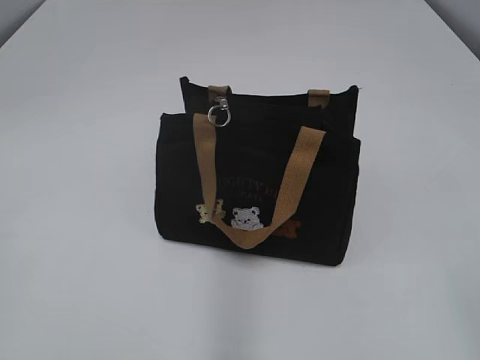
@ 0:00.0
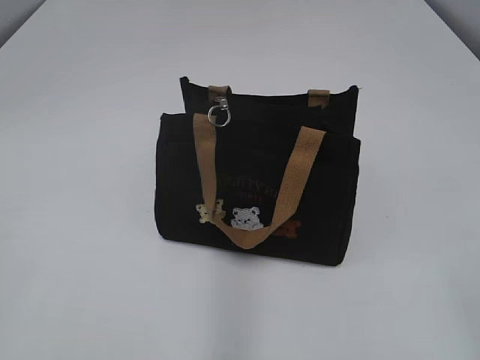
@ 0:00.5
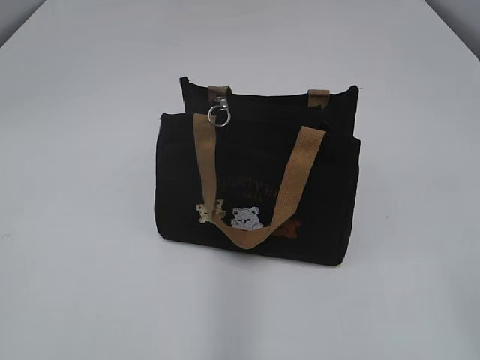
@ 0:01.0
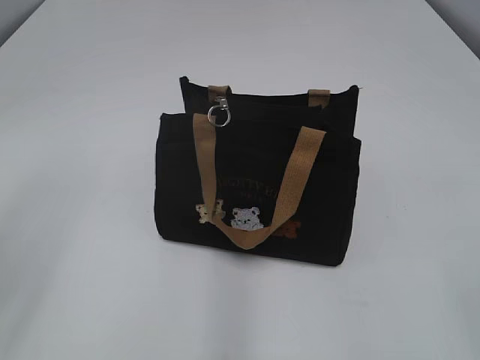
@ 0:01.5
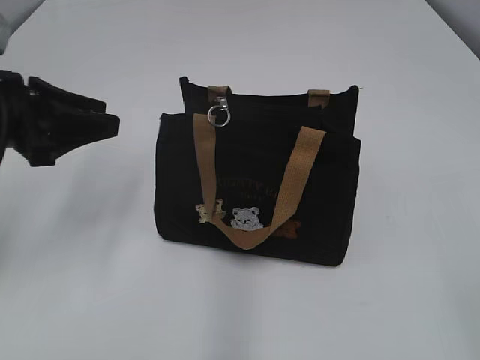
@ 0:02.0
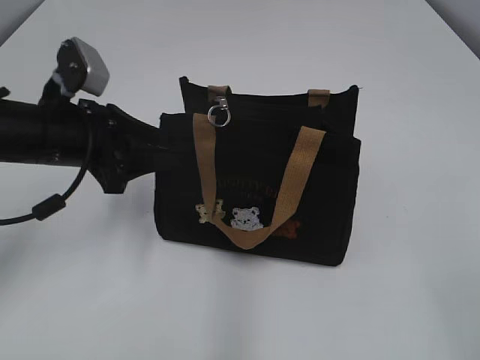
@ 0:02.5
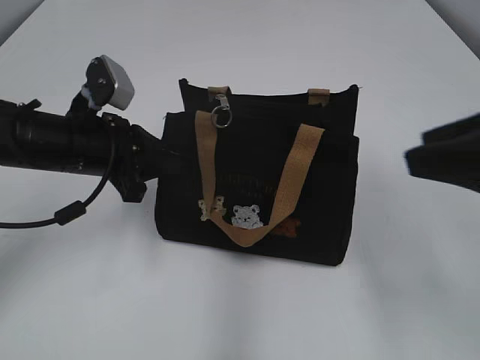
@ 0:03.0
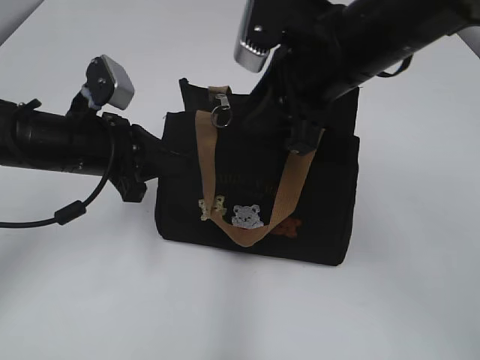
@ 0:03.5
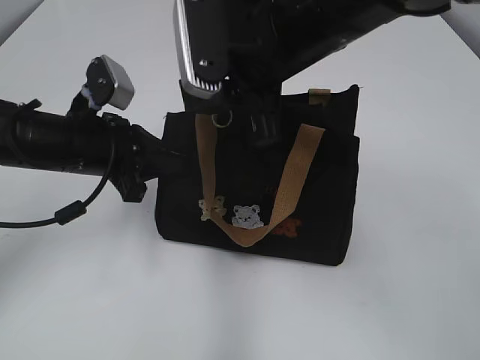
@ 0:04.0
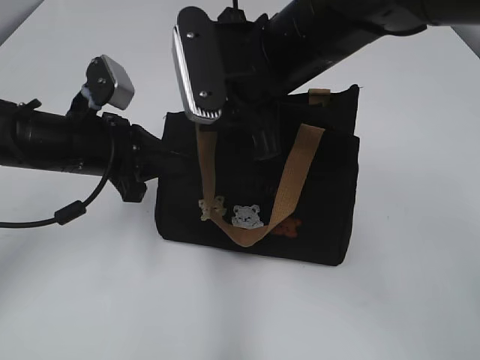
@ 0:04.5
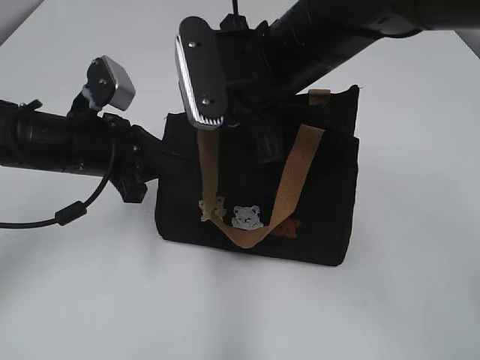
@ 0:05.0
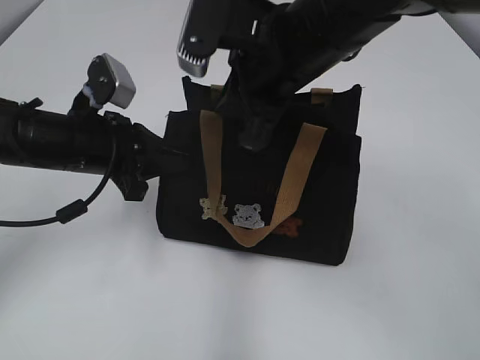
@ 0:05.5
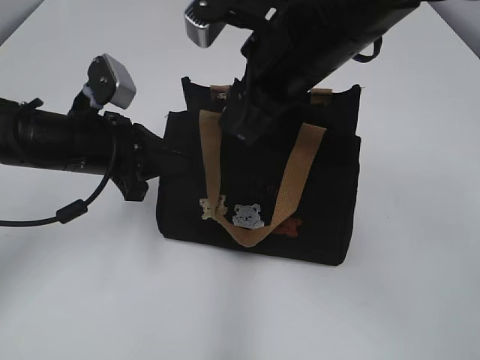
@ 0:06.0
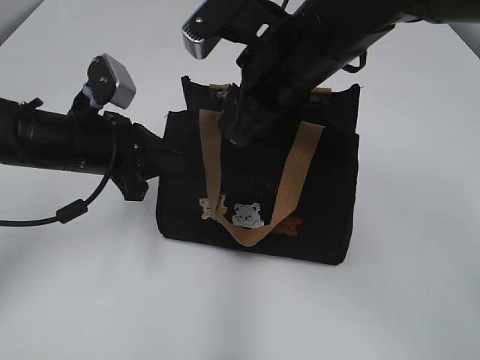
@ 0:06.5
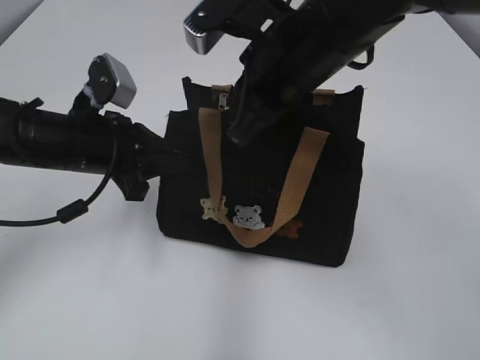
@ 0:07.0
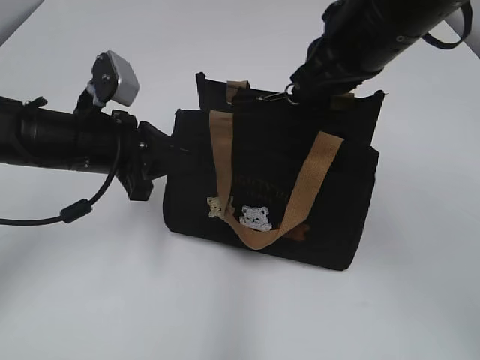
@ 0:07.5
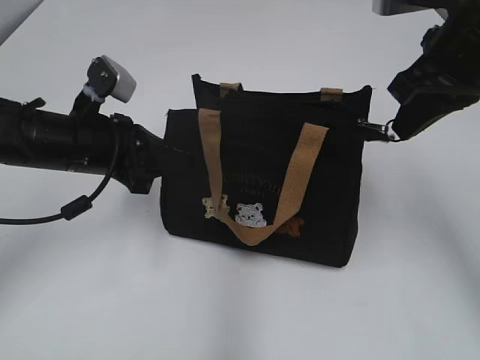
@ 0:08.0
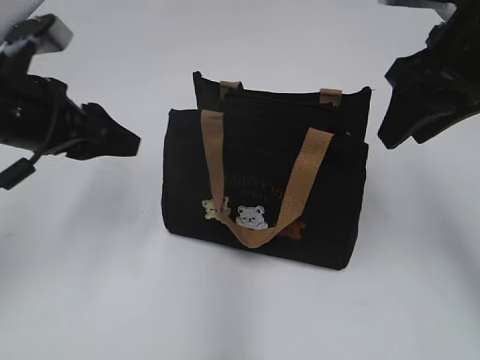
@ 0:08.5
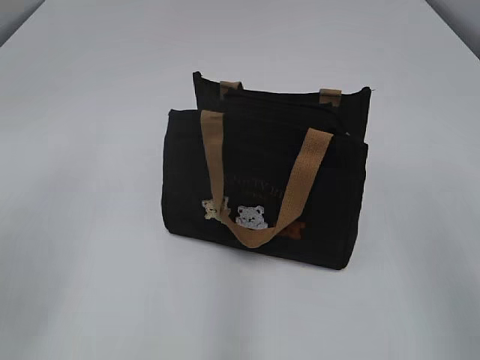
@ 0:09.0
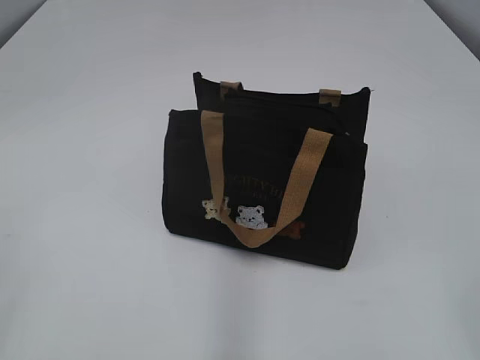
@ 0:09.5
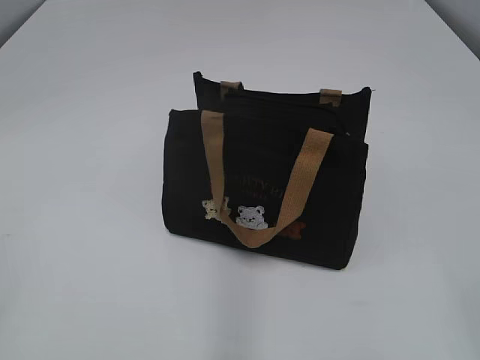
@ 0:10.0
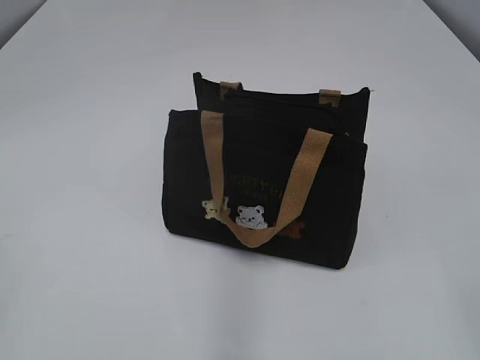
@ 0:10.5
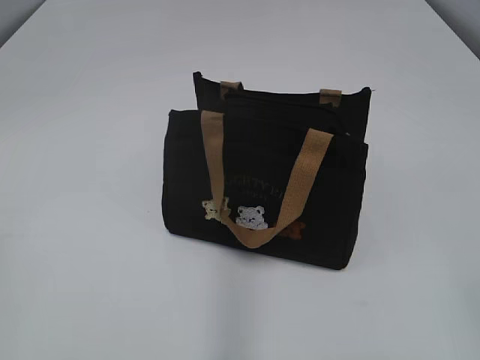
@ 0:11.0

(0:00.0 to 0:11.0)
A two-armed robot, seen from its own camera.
Step, 0:00.0 - 0:08.0: Pull open the zipper with your right hand.
0:02.0 - 0:03.5: The right gripper shifts approximately 35 cm forward and to the left. Meanwhile the left gripper heads to the right and downward, covering some 10 cm, and closes.
0:03.5 - 0:05.5: The right gripper closes.
0:05.5 - 0:07.5: The right gripper moves to the right, some 10 cm, and opens, then closes again.
0:07.5 - 0:09.0: The left gripper is displaced backward, upward and to the left by roughly 25 cm, and opens up; the right gripper shifts about 25 cm backward and to the right, and opens.
0:09.0 - 0:11.0: Both grippers travel together backward, approximately 15 cm.
